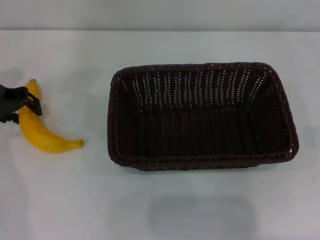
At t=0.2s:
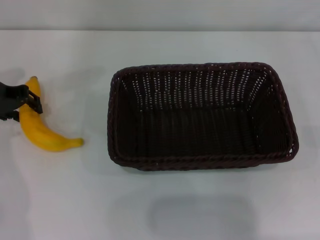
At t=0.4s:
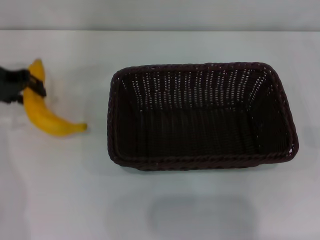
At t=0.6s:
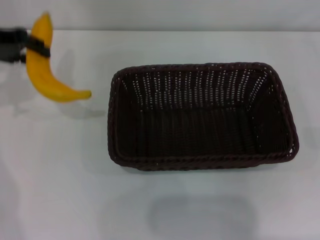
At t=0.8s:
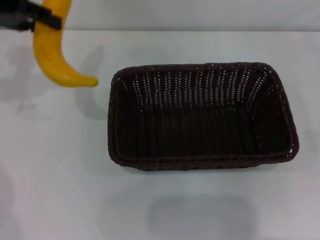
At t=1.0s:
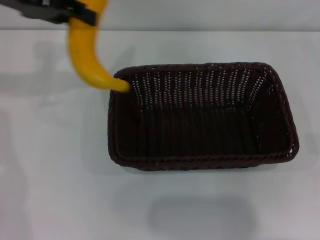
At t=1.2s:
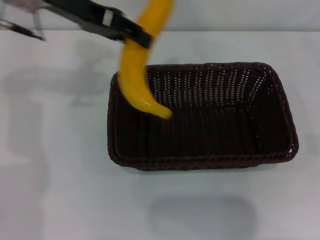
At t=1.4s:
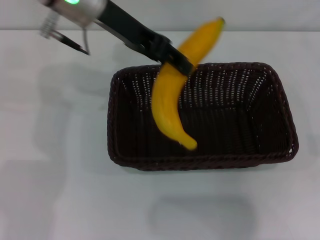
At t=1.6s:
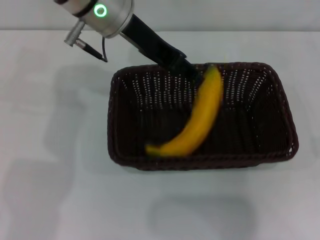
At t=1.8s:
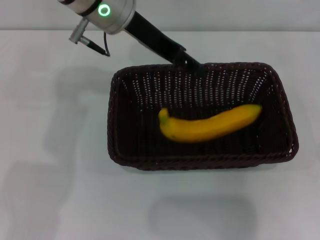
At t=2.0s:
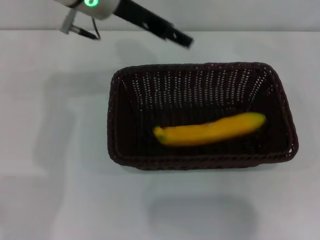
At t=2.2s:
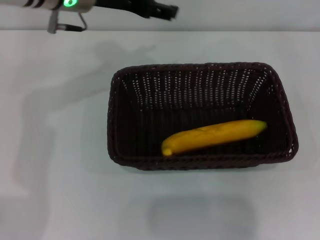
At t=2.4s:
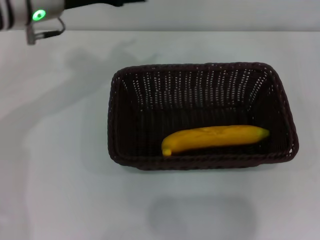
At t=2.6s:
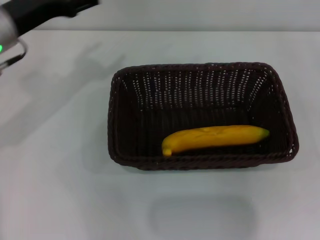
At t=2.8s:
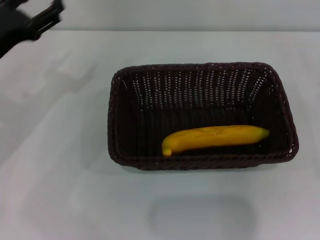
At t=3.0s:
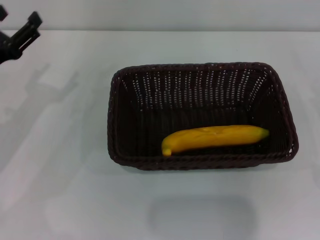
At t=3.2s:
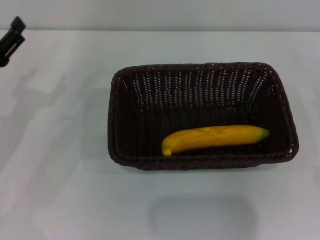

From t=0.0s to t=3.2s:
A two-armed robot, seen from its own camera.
Step, from t=0.4s to t=1.4s: Place the banana into the dark basket with the left gripper.
From t=0.0s to t=1.6s: The left gripper shifts roughly 25 cm to the right and upward.
From t=1.6s to t=3.2s: The right gripper ends up approximately 5 cm from where it was. The left gripper shifts about 30 cm to the left, downward and backward, and opens its fingers.
